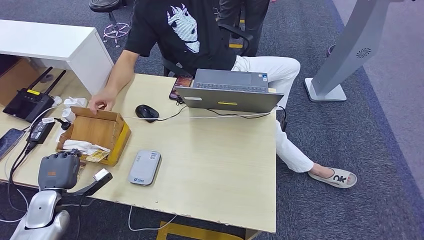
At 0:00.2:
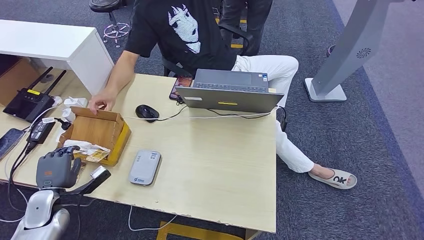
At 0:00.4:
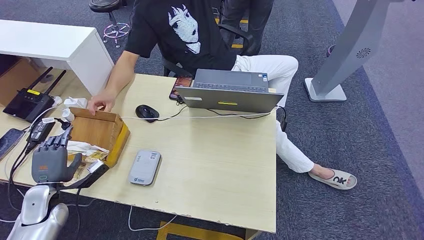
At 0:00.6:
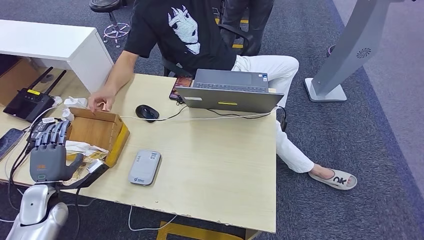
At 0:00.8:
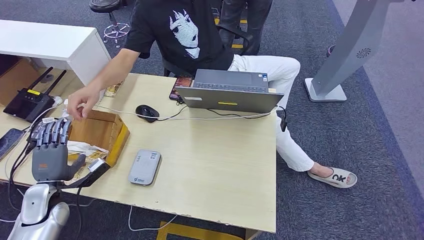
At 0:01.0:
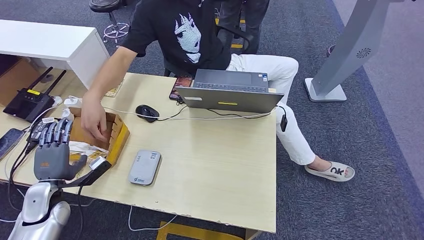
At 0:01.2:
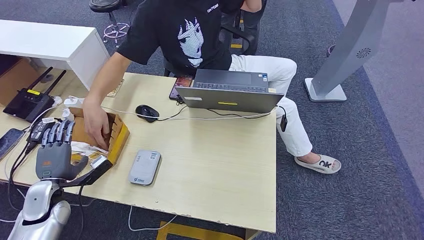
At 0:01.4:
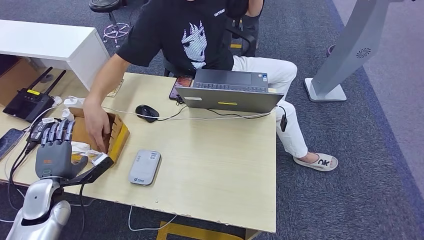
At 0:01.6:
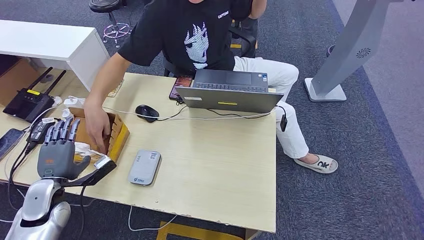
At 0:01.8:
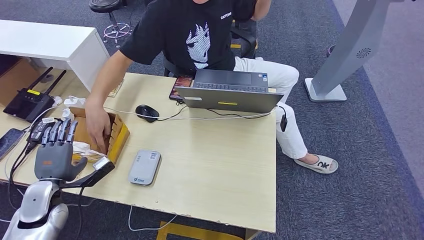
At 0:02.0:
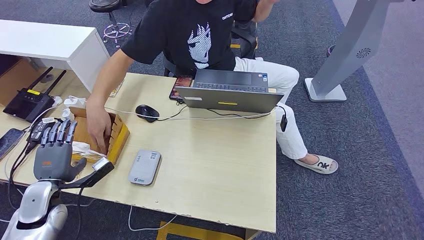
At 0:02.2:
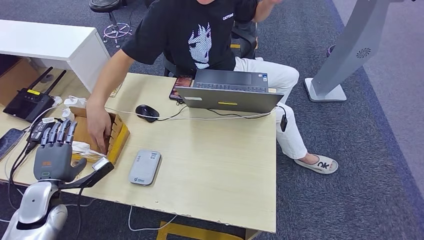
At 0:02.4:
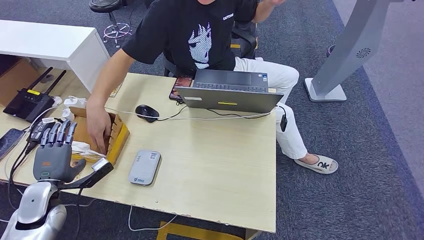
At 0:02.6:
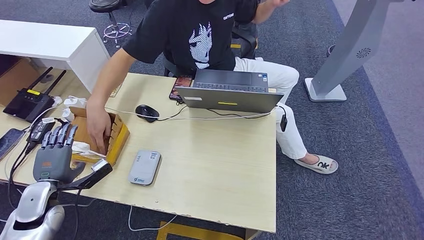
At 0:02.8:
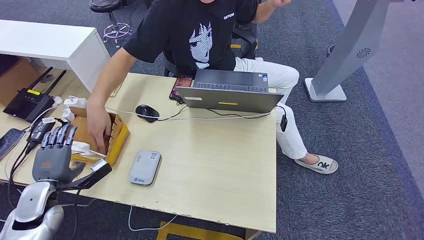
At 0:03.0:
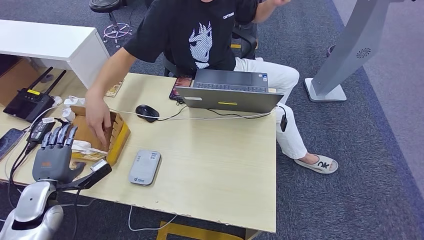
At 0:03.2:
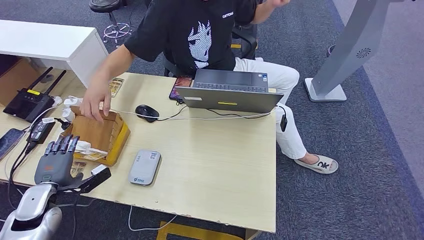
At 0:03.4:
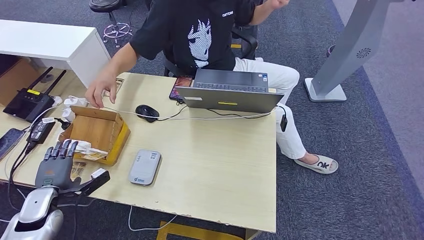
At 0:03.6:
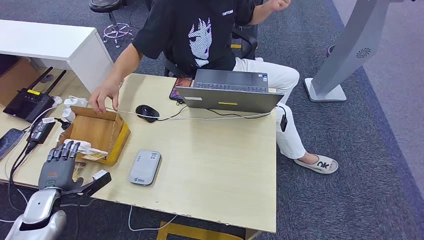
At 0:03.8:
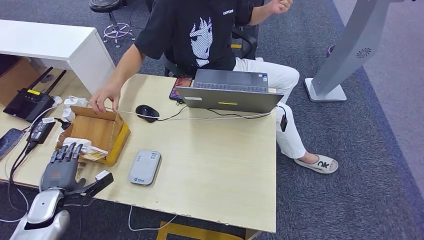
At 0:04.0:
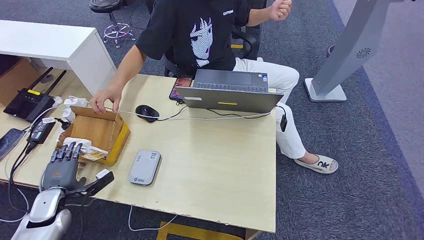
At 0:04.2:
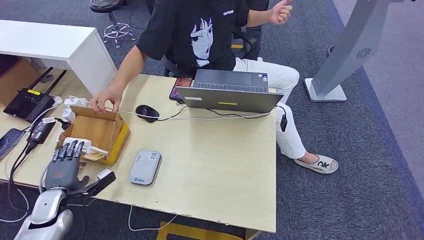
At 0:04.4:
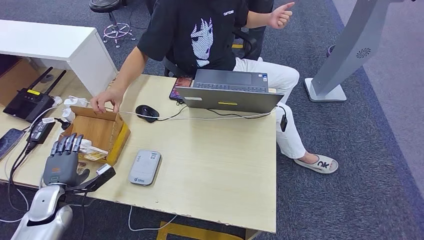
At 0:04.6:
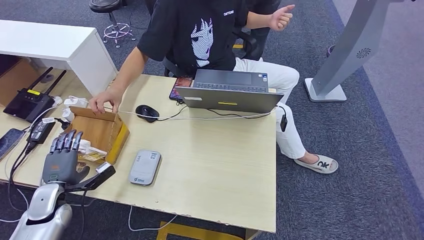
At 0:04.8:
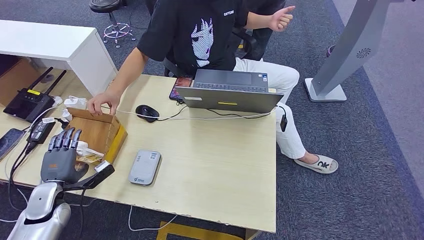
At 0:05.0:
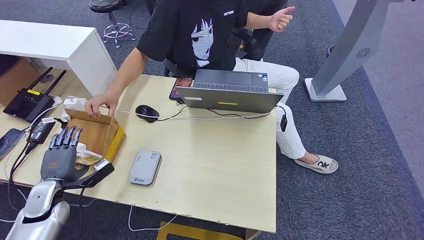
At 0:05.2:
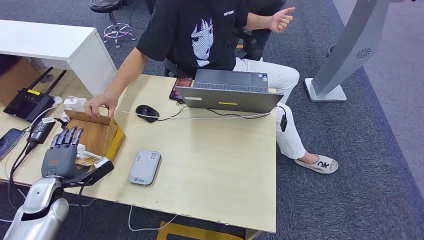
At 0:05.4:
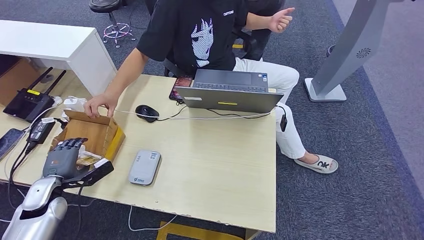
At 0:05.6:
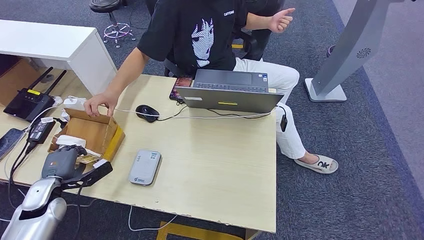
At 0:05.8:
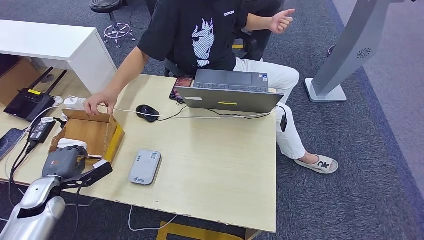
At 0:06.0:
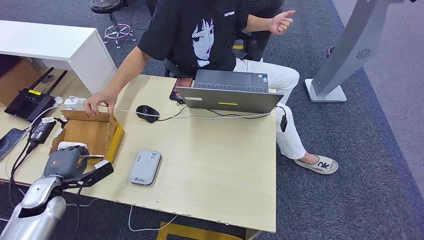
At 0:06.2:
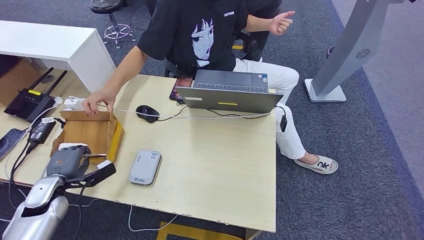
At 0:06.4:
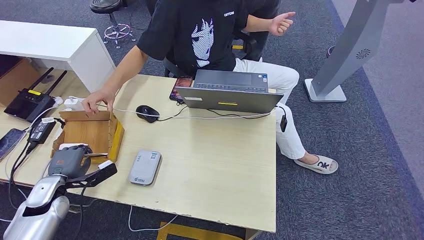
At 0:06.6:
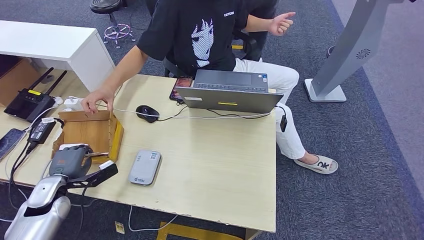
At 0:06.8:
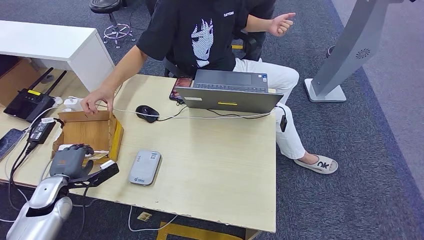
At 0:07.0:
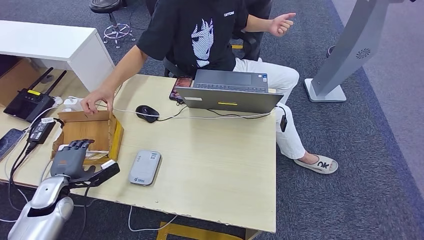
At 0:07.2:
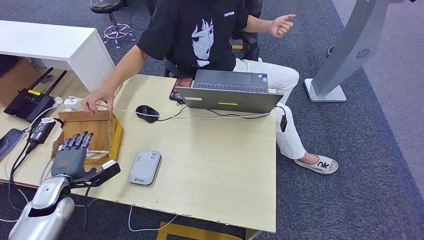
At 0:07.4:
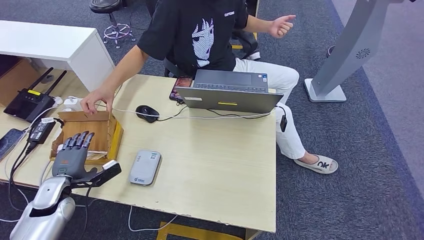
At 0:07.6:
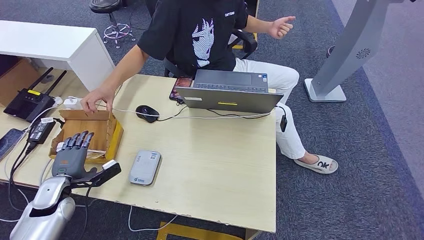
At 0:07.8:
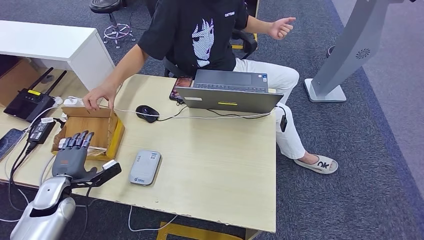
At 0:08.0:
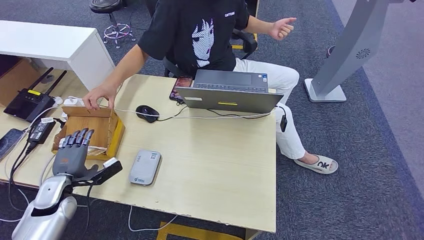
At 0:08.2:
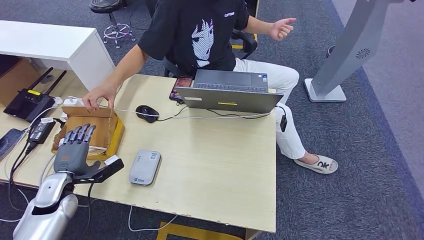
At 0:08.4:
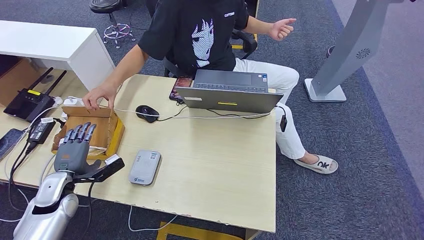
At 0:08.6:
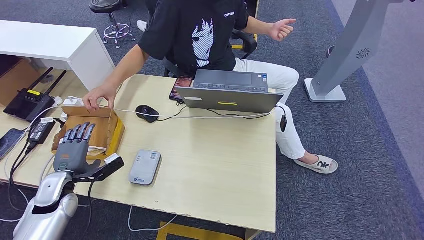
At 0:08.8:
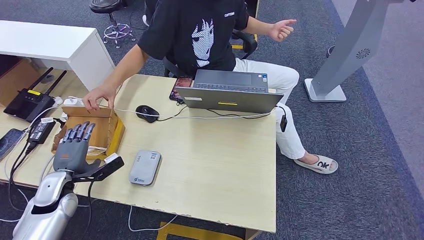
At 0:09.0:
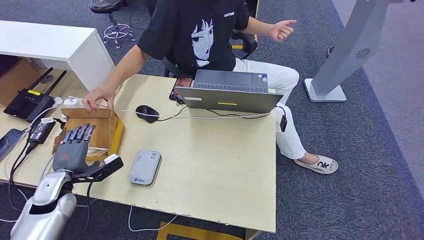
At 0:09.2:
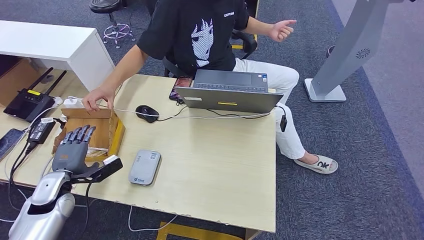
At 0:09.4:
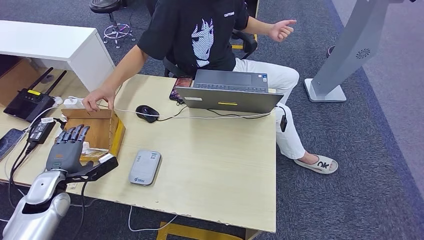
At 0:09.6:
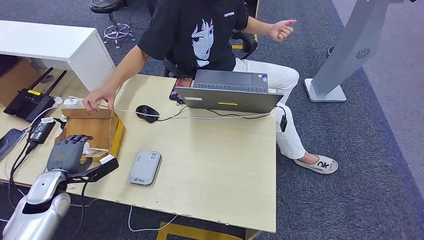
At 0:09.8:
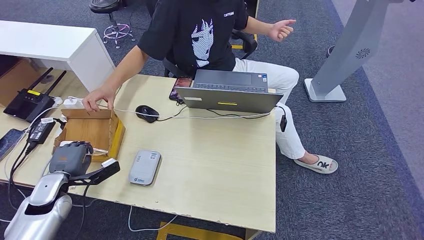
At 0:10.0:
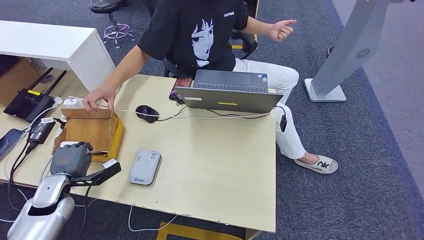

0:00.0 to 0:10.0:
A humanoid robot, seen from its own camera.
0:00.0 to 0:01.4: The left hand shifts roughly 5 cm upward.
0:01.4 to 0:02.8: There are only small adjustments of the hands.
0:02.8 to 0:04.2: The left hand moves downward, some 5 cm.
0:04.2 to 0:07.2: The hands make only small movements.
0:07.2 to 0:10.0: The hands move only a little.

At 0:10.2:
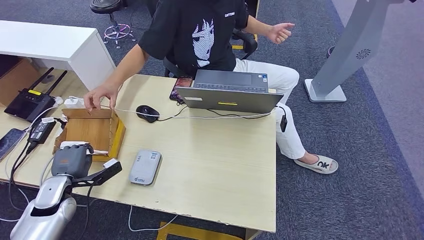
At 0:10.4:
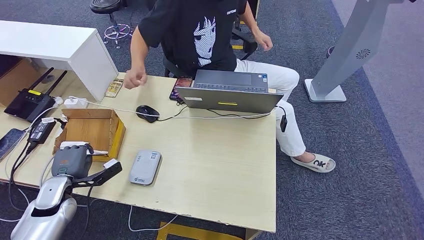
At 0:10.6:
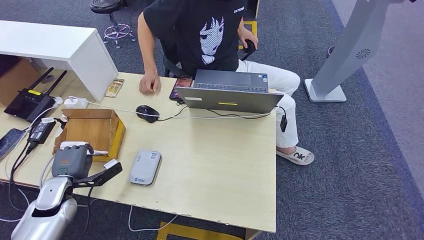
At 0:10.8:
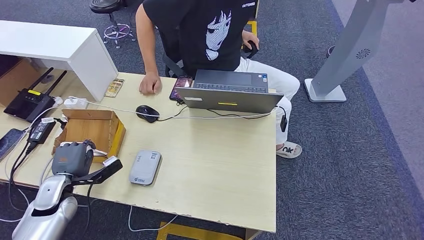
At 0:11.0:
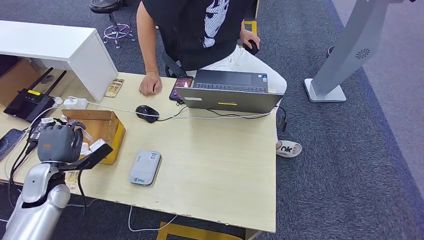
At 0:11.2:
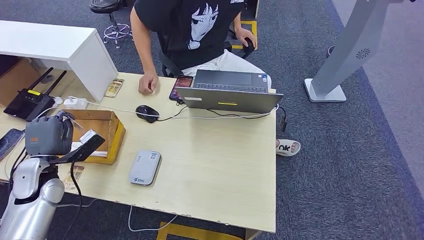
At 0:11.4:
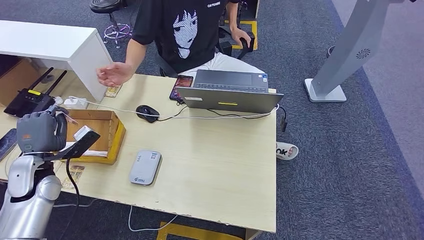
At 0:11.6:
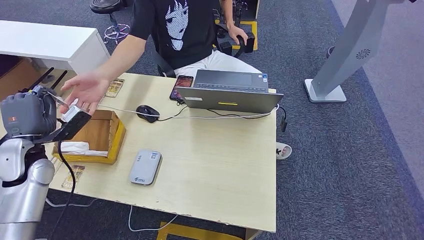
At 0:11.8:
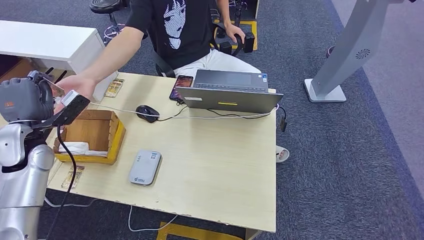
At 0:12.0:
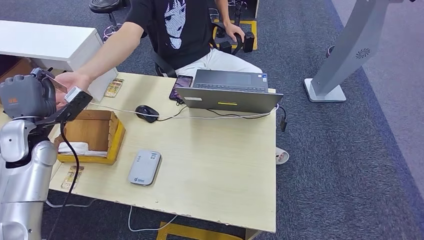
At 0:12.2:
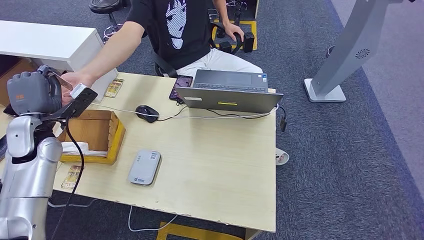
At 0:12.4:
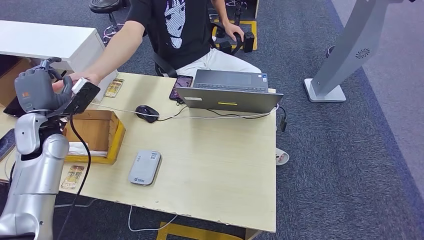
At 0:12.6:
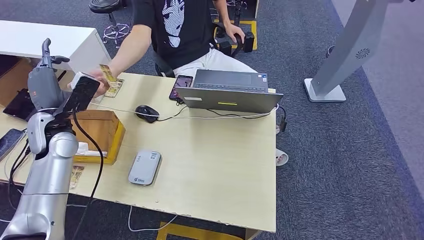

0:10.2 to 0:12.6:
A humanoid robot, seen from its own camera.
Step, 0:10.8 to 0:12.4: Hand the room key to the person.
0:10.2 to 0:11.4: The left hand travels upward by about 10 cm.
0:11.4 to 0:12.6: The left hand moves forward, upward and to the right, some 10 cm.
